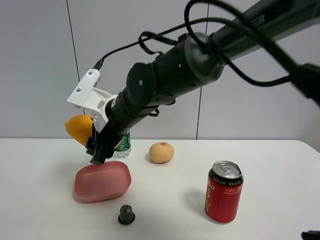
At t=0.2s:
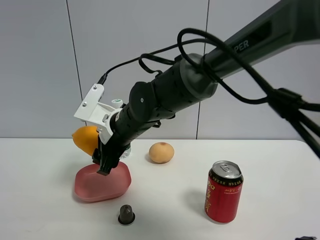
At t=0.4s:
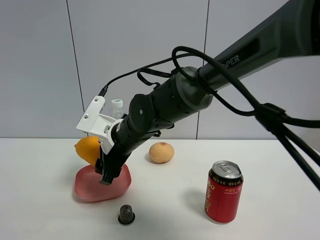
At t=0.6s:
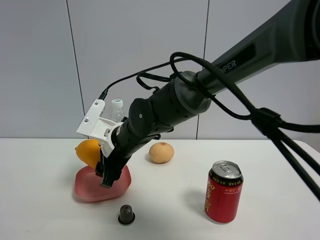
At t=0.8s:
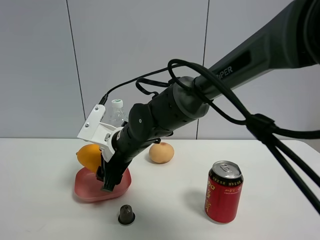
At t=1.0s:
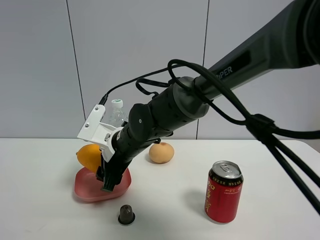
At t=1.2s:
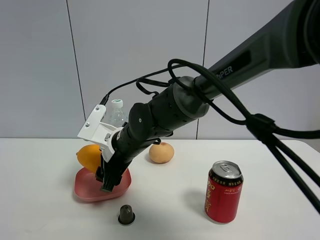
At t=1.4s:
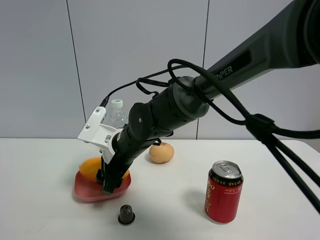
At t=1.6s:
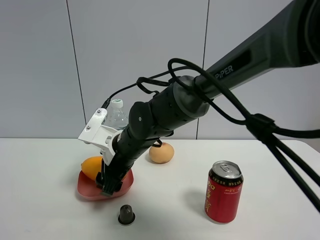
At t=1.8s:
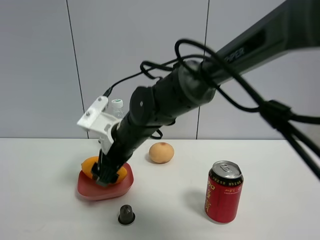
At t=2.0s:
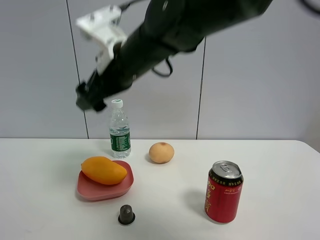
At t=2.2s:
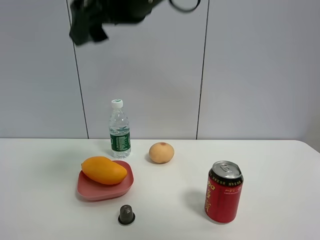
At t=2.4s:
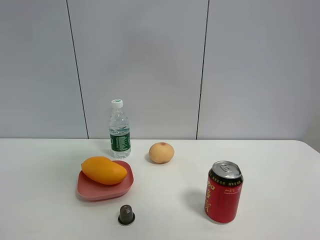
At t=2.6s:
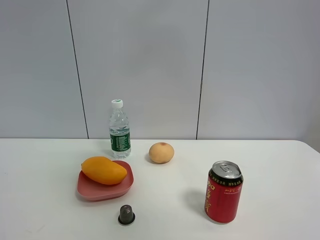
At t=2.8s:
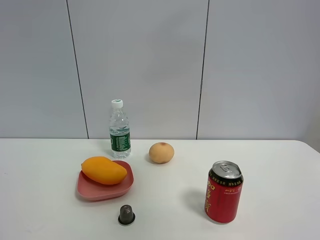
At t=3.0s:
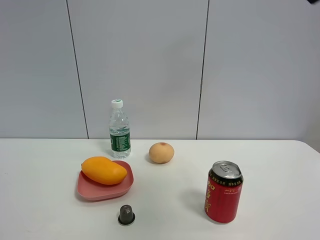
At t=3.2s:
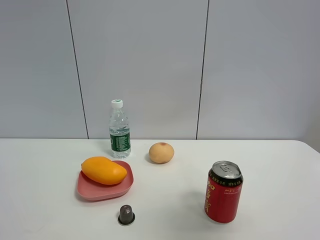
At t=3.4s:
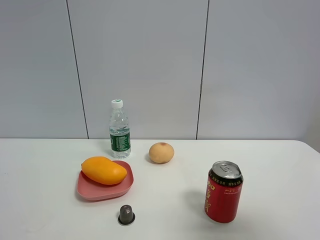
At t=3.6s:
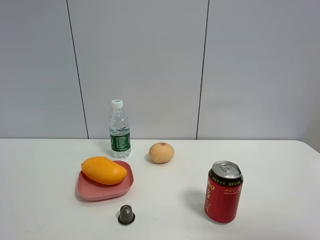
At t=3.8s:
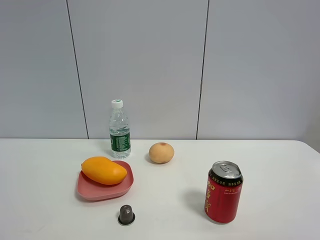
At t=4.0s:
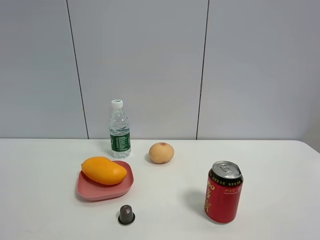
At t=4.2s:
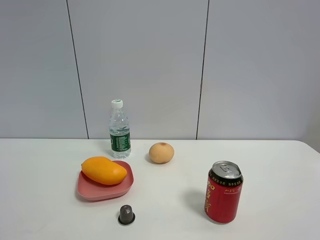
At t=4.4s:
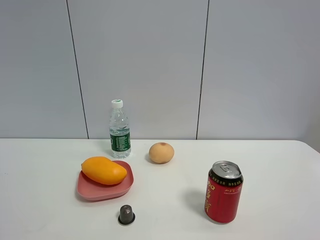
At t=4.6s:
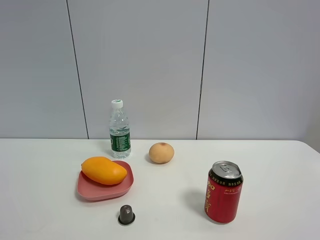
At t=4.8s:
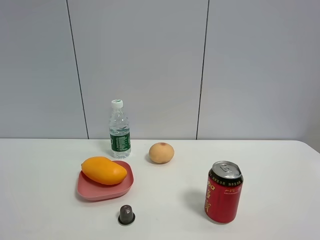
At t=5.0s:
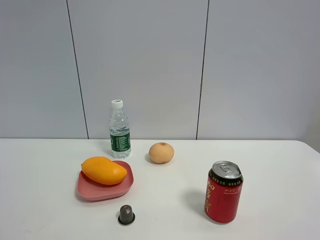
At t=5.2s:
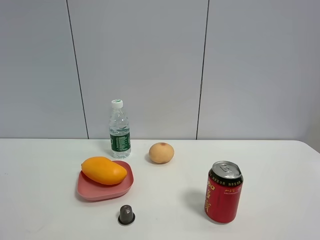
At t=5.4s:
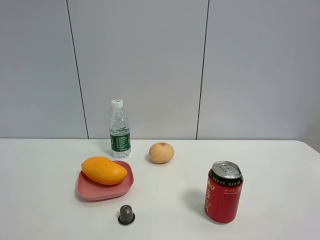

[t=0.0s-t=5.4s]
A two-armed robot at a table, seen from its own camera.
Task of the whole recording: the gripper move the object.
t=0.0s to t=1.4s: The right gripper moves downward, approximately 5 cm.
t=1.4s to t=2.8s: The right gripper goes roughly 50 cm upward, to the right and backward, and opens its fingers.
t=2.8s to t=4.0s: The right gripper shifts about 30 cm backward, downward and to the right.

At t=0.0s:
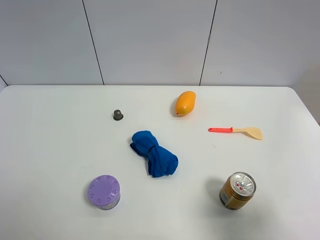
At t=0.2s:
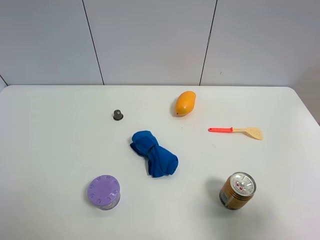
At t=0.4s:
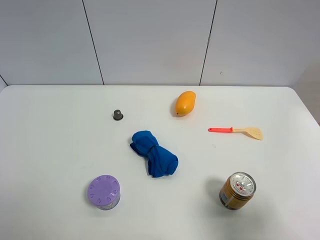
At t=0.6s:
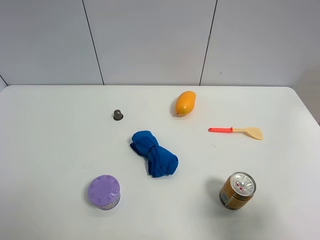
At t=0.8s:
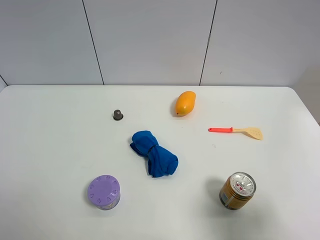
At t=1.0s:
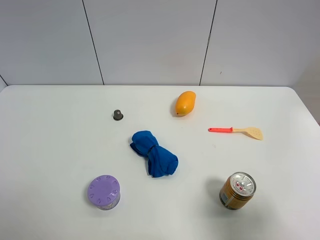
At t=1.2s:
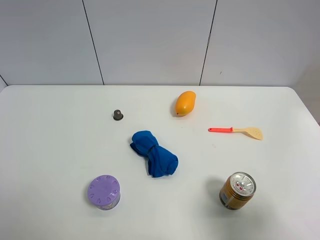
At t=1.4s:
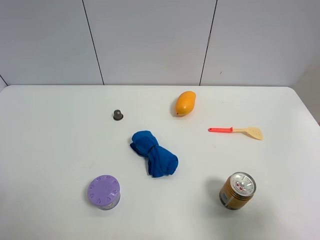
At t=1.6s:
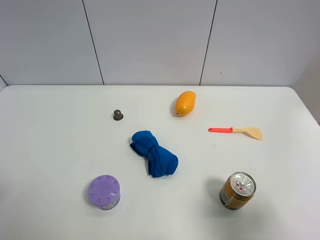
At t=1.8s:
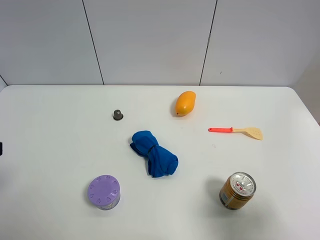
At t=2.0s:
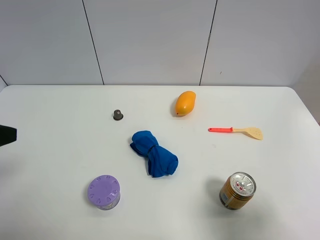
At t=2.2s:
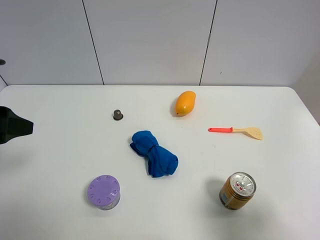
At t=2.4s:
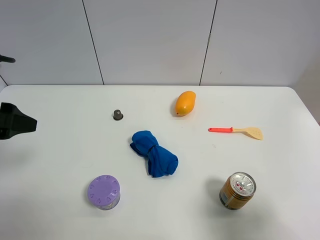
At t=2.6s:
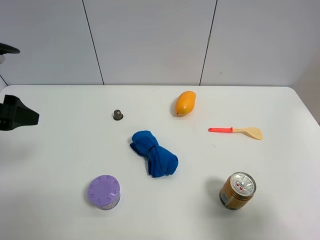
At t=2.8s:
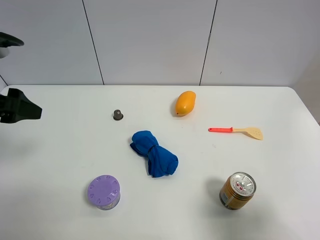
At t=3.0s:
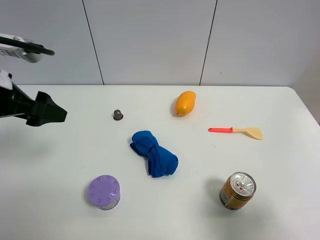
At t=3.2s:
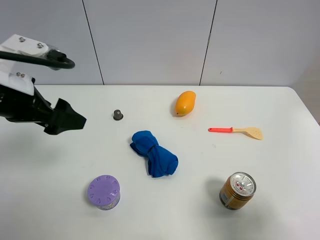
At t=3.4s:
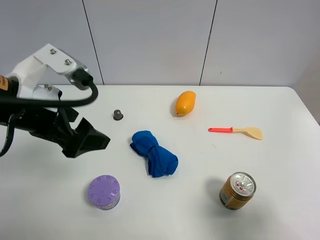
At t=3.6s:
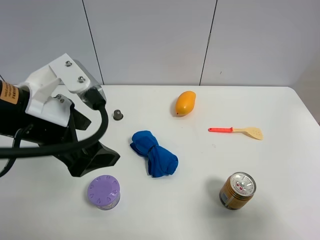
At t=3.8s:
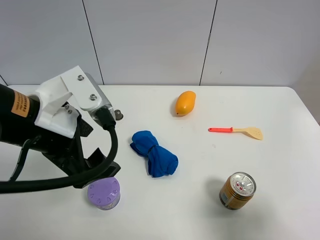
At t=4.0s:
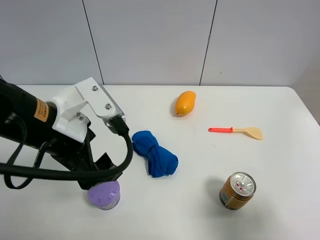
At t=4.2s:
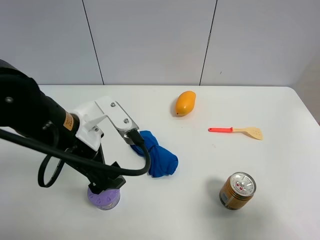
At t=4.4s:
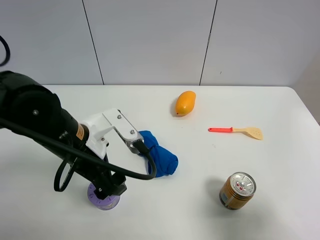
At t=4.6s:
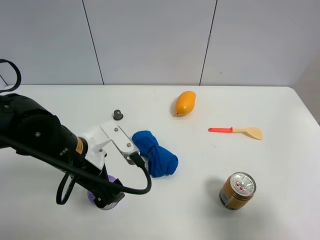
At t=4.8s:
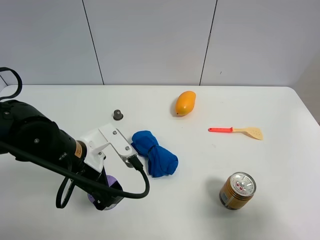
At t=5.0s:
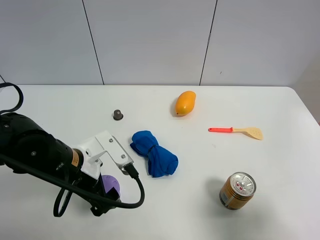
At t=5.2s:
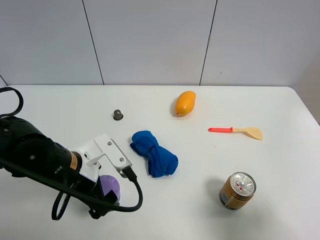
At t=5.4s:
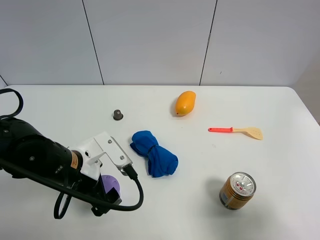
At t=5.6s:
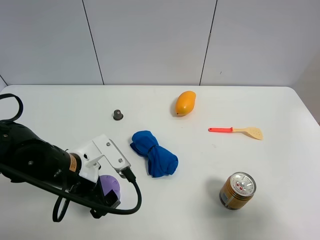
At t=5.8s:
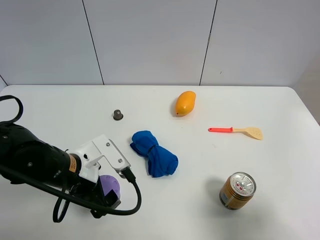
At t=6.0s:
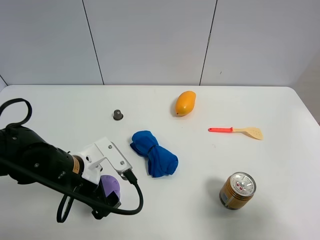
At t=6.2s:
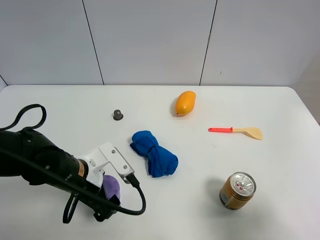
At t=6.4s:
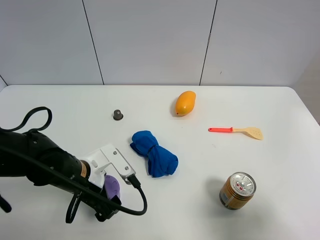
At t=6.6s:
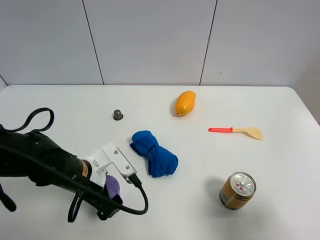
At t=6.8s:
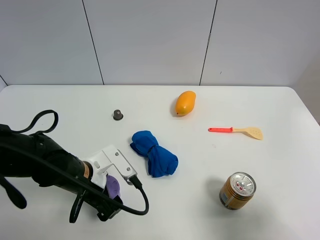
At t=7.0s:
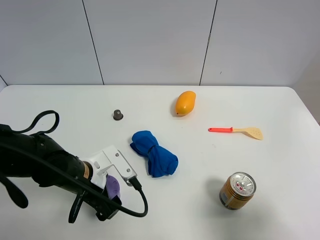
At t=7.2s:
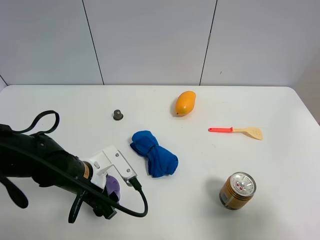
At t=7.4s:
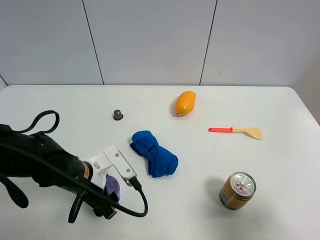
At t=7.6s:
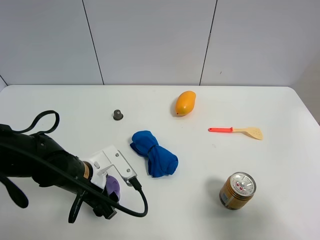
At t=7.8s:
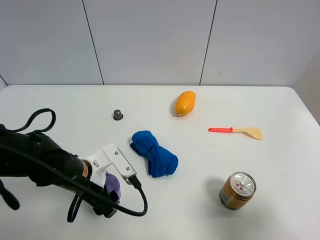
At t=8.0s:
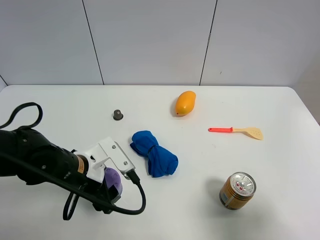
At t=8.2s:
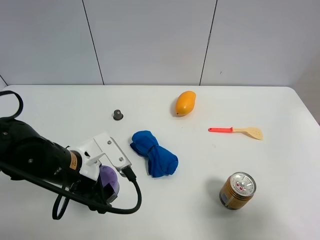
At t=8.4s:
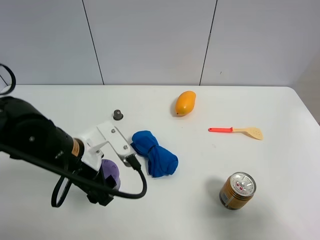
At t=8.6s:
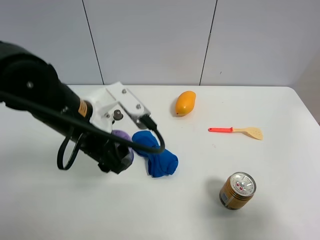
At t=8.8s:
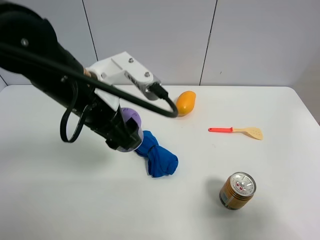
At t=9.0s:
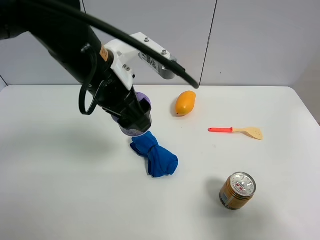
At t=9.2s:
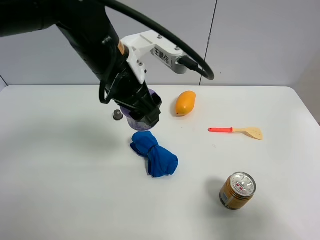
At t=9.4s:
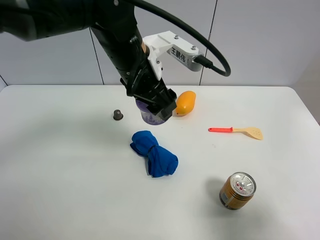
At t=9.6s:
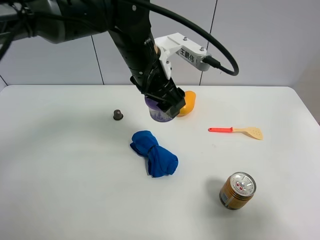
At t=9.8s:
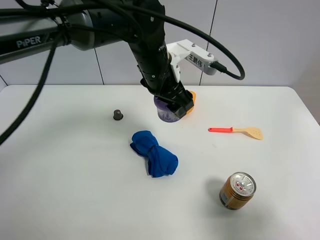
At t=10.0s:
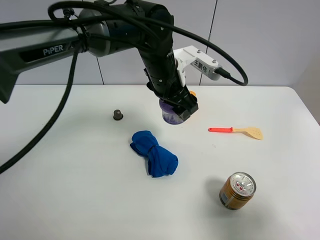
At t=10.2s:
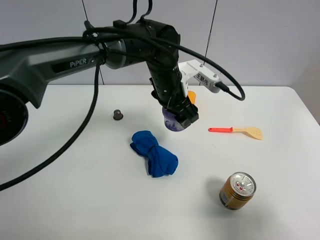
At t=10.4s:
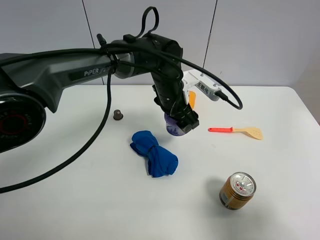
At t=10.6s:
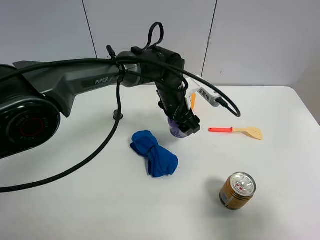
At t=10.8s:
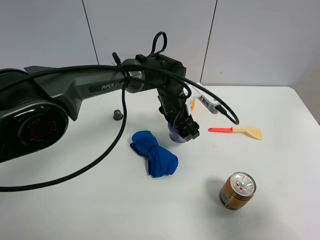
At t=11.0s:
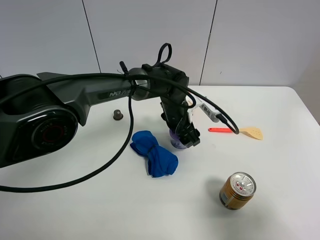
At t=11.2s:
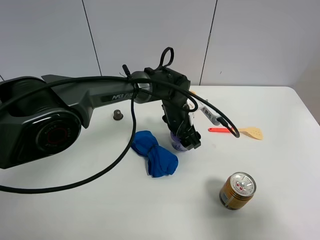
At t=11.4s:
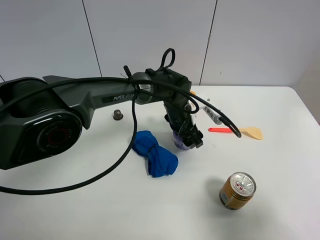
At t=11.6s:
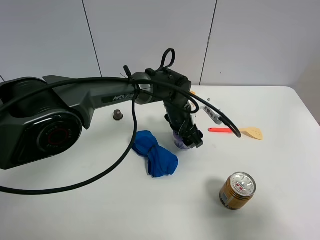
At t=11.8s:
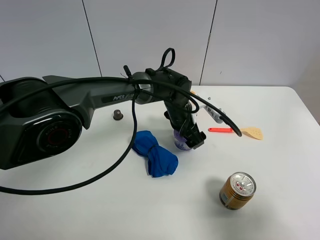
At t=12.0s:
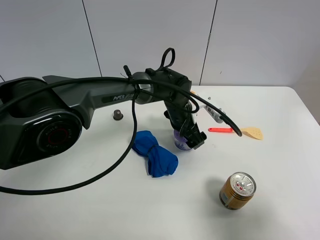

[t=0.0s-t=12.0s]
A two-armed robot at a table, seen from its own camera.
Task of the whole recording: the gripper move the object.
Step, t=0.0s to t=7.2s: Grasp the Incense box with the left gripper.
t=1.6s to t=3.0s: The left gripper goes some 15 cm forward.
t=3.0s to t=4.4s: The left gripper heads to the right and downward, covering roughly 15 cm.
t=4.4s to t=6.0s: The left gripper moves downward, approximately 5 cm.
t=6.0s to t=7.6s: The left gripper closes its fingers.
t=7.6s to t=9.0s: The left gripper is displaced upward by approximately 20 cm.
t=9.0s to t=10.4s: The left gripper travels downward, forward and to the right by roughly 20 cm.
t=10.4s to t=12.0s: The left gripper moves downward, approximately 5 cm, and opens.

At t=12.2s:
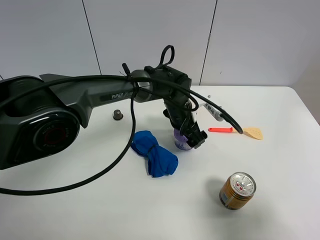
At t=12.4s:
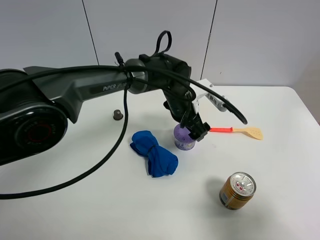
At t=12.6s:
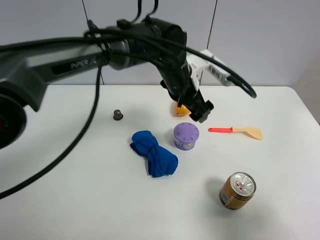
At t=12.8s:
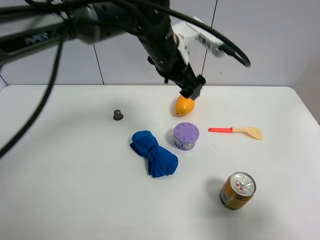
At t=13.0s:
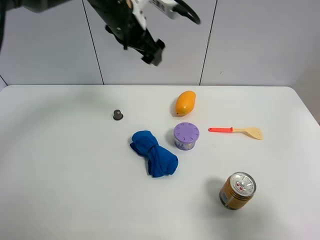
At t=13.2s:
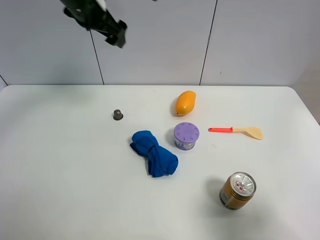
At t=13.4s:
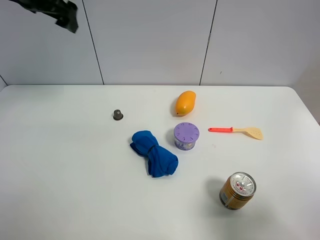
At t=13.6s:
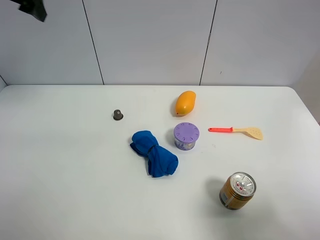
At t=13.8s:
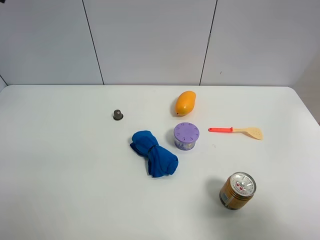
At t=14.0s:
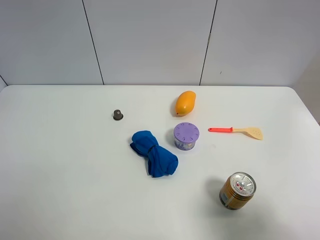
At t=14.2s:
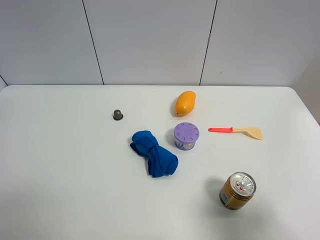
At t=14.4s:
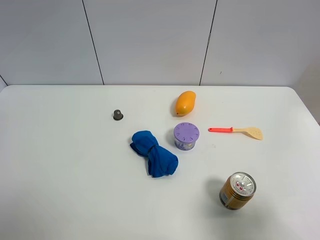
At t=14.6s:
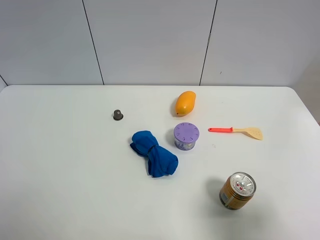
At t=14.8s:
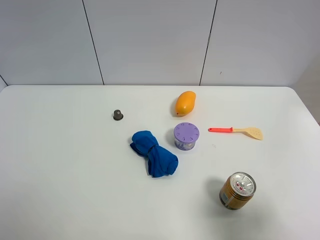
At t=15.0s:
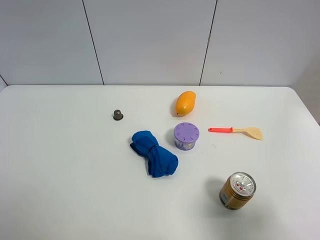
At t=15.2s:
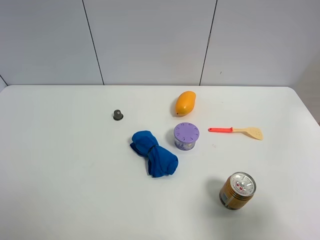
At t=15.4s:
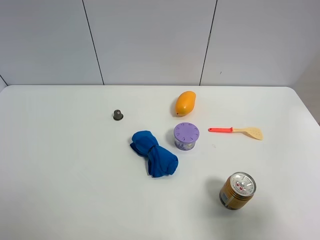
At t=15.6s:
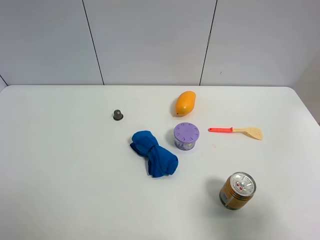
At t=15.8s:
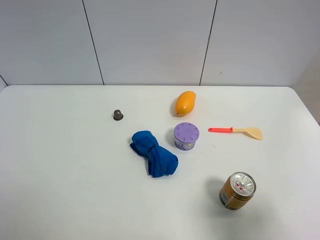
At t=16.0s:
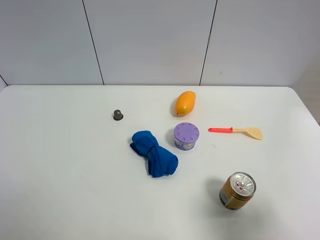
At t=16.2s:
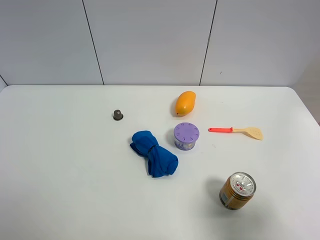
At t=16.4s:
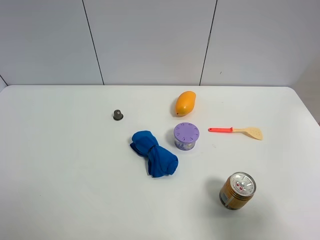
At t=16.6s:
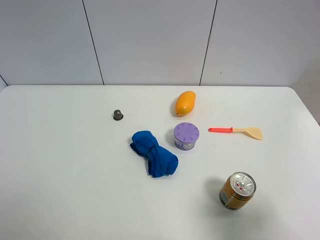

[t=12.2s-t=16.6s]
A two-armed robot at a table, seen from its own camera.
Task of the whole recording: the gripper move the object.
t=12.2s to t=13.6s: The left gripper heads to the left and upward, covering approximately 50 cm.
t=13.6s to t=15.2s: The left gripper travels backward by roughly 40 cm.
